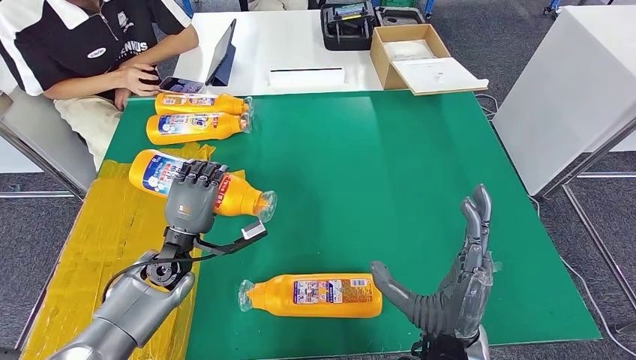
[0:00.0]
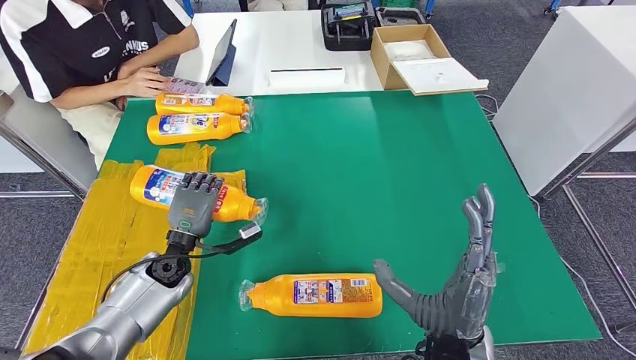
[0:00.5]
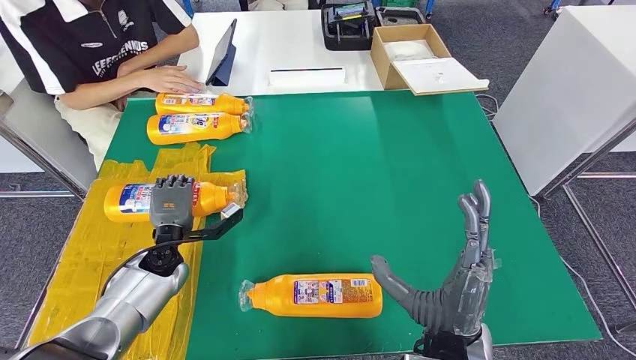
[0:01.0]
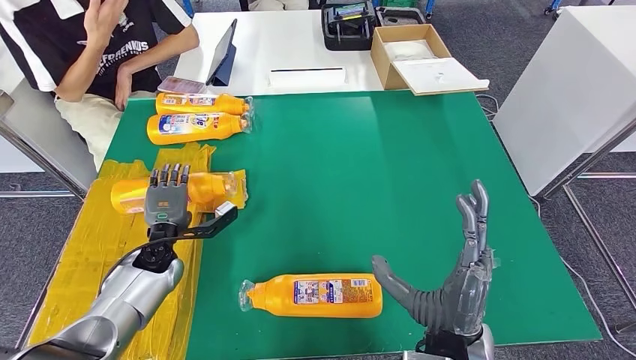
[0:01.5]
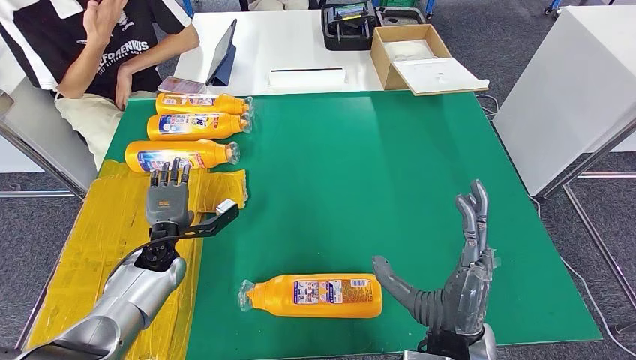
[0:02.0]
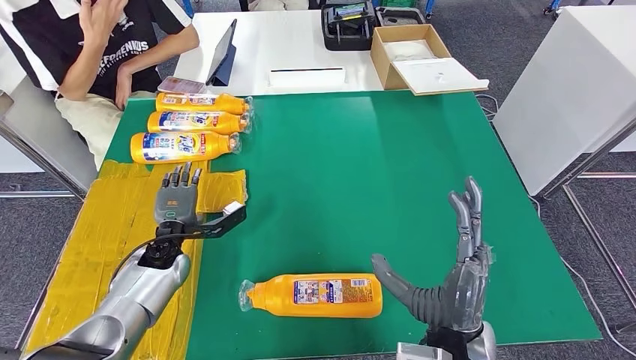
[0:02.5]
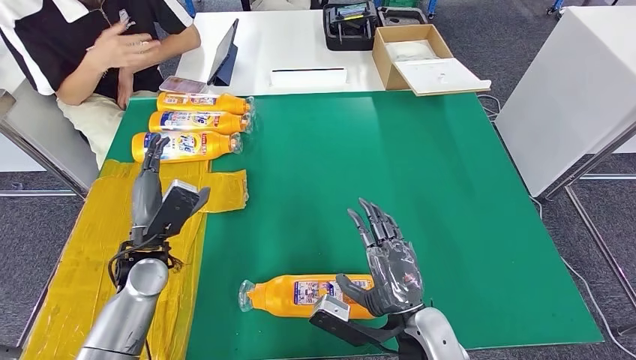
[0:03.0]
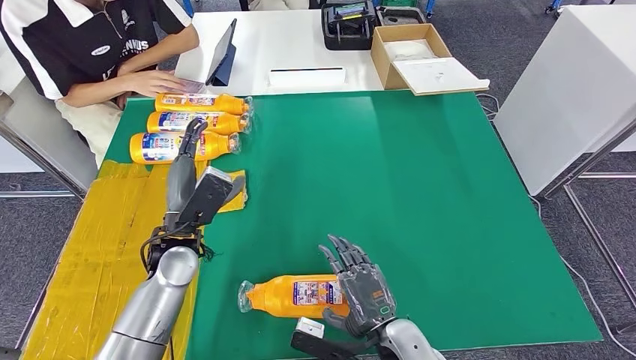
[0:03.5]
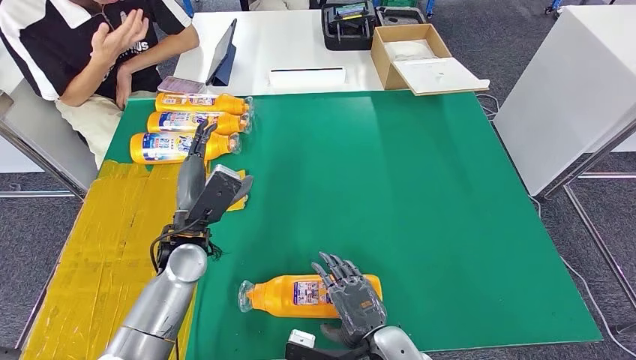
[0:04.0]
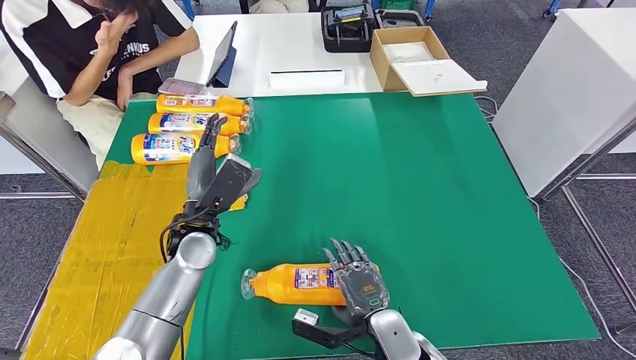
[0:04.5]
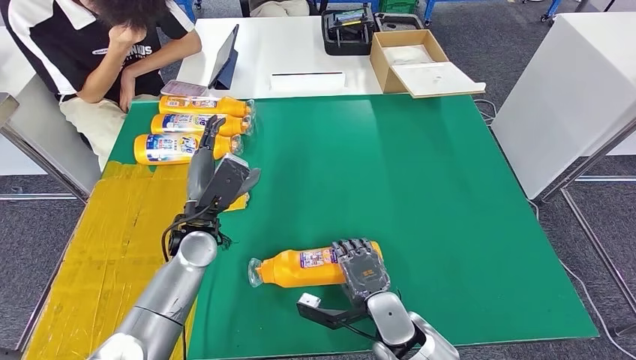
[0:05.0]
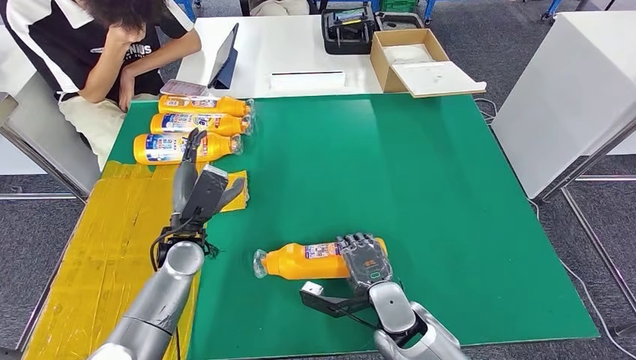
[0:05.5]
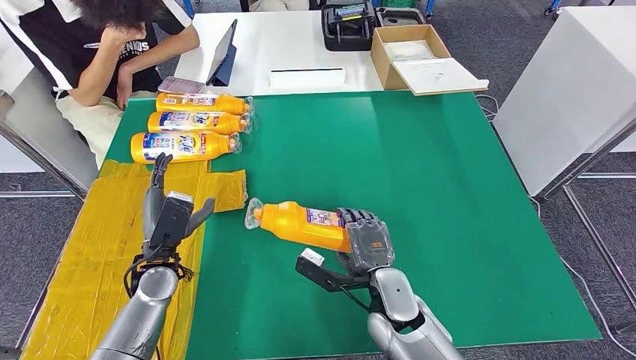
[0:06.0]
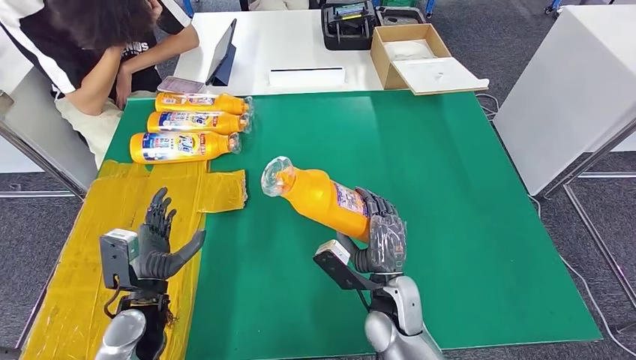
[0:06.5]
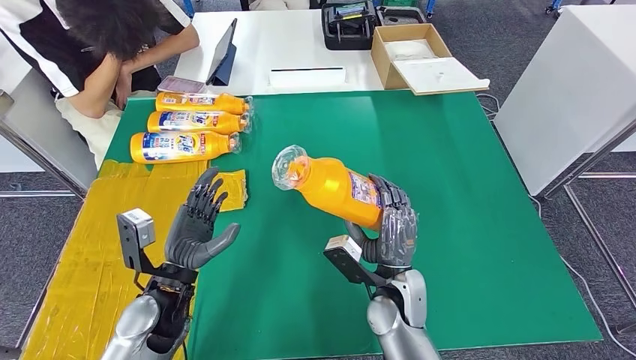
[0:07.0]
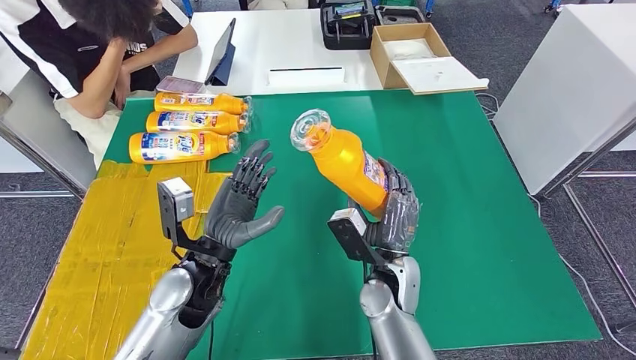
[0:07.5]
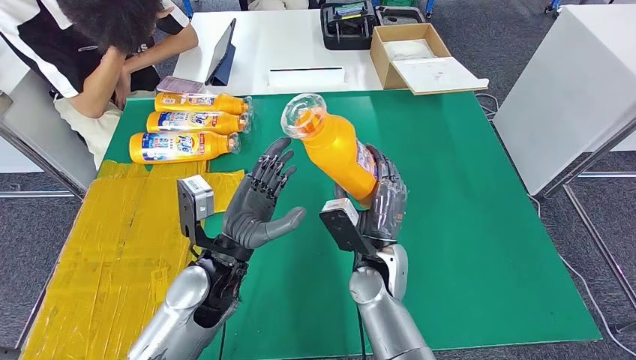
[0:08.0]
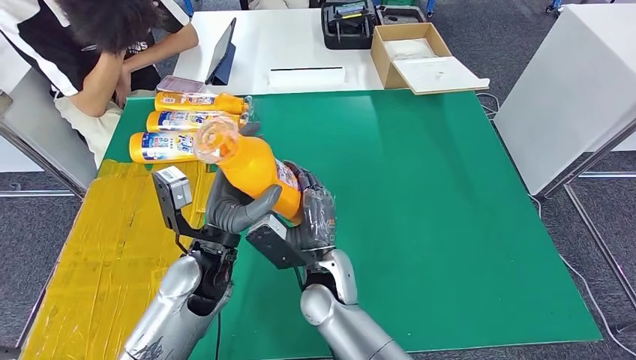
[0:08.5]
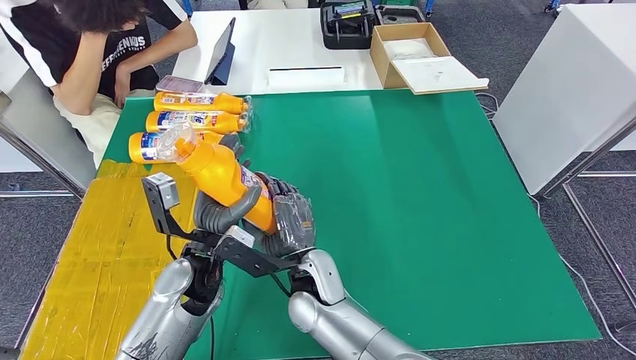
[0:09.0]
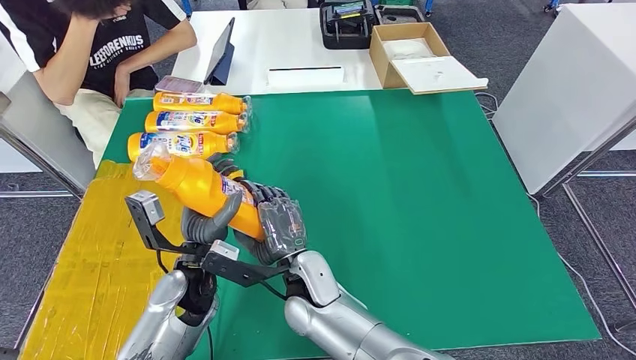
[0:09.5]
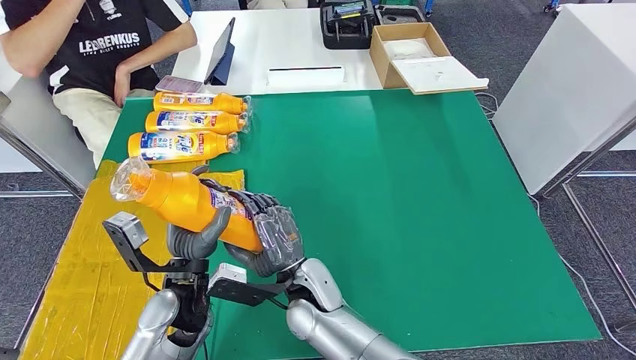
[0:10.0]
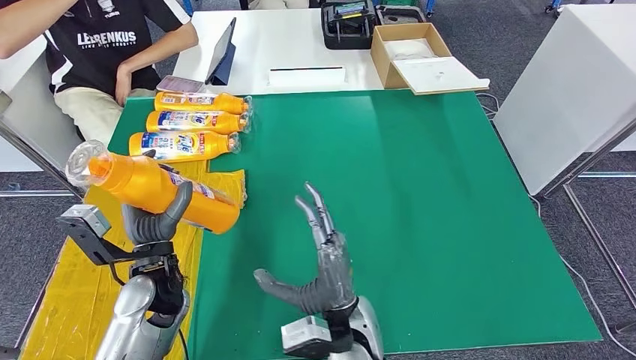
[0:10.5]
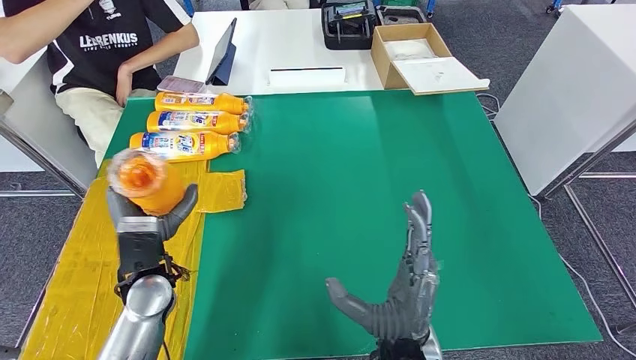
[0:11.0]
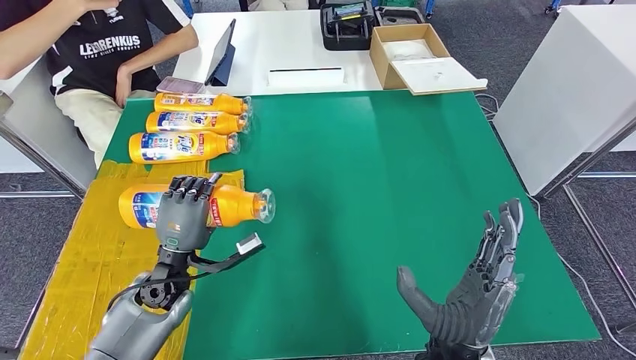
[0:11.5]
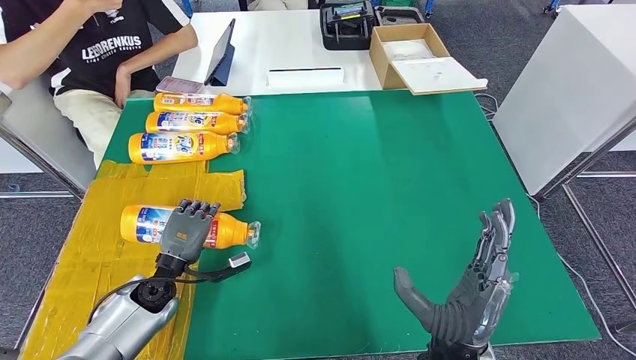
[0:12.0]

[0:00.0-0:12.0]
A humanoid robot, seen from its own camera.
Step, 0:00.0 to 0:02.0: Flip the fast-moving consumer goods bottle to the front side.
Step, 0:02.5 to 0:11.5: Pick up the fast-moving consumer goods bottle from the table.
0:00.0 to 0:02.0: The left hand ends up approximately 5 cm from where it was.
0:02.0 to 0:04.0: The right hand is displaced downward by about 10 cm. The left hand shifts approximately 10 cm upward and to the right.
0:04.0 to 0:06.0: The right hand heads forward, covering about 10 cm; the left hand shifts approximately 10 cm downward and to the left.
0:10.0 to 0:12.0: The right hand goes approximately 20 cm to the right and backward; the left hand moves downward and to the left, roughly 10 cm.

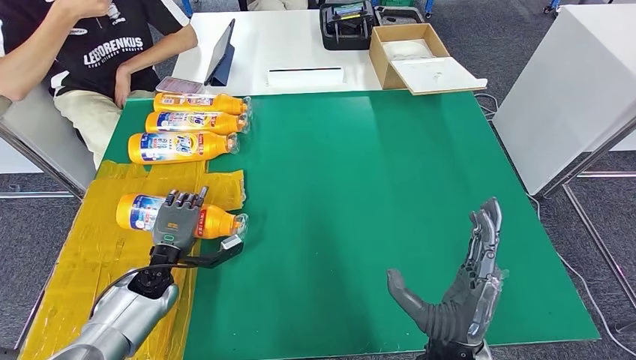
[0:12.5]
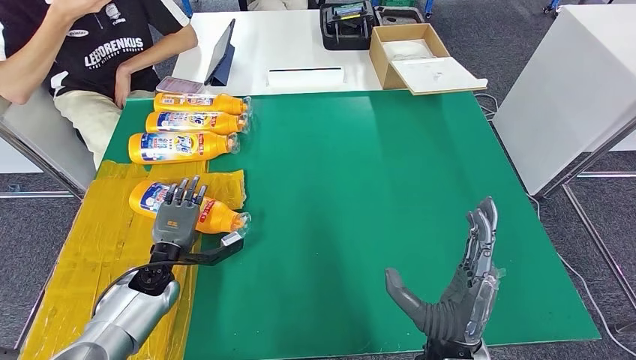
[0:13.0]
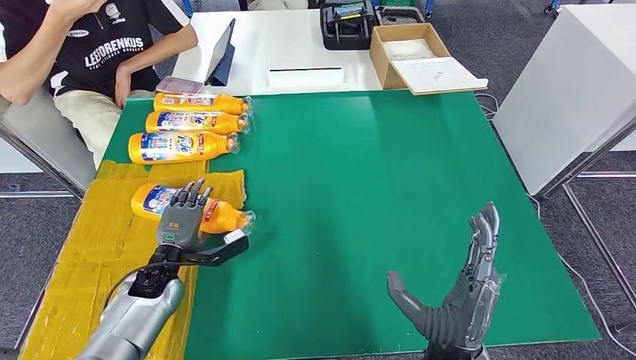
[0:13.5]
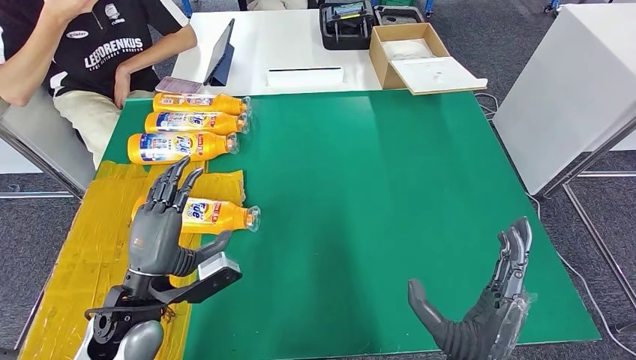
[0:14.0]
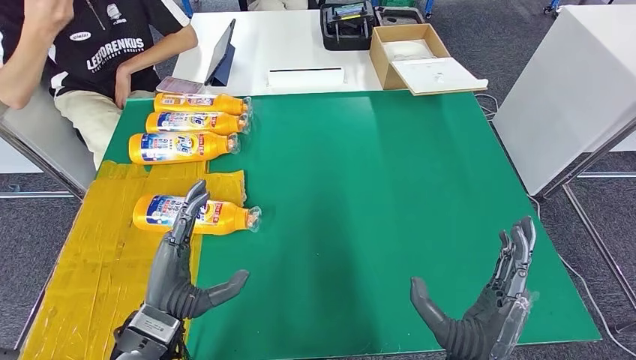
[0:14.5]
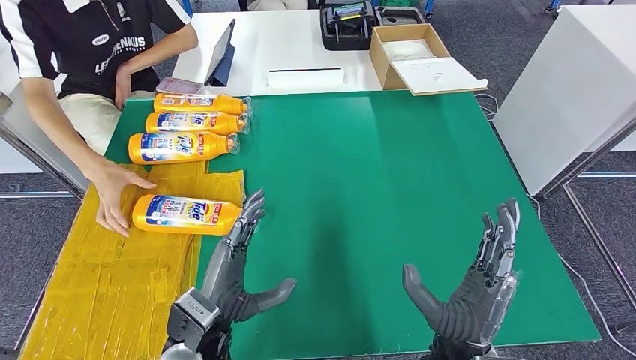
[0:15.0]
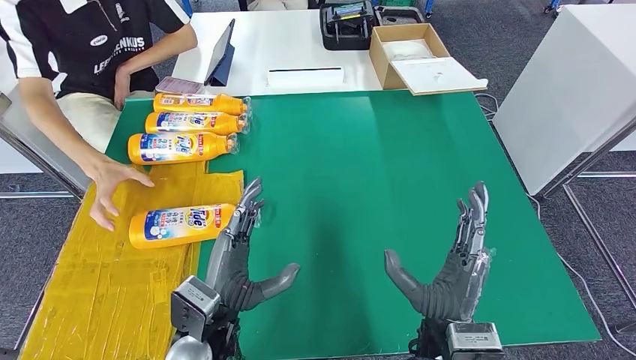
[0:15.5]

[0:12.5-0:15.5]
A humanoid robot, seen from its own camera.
Step, 0:12.5 to 0:15.5: Flip the fast-moving consumer goods bottle to the front side.
0:12.5 to 0:14.0: The left hand travels upward and backward by approximately 15 cm.
0:14.0 to 0:15.5: The right hand ends up about 5 cm from where it was, while the left hand heads to the right, covering approximately 10 cm.
